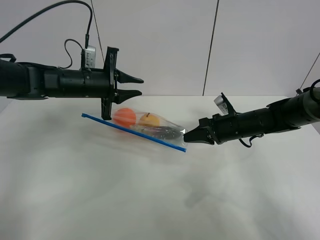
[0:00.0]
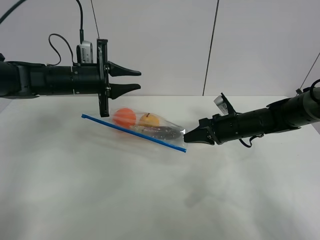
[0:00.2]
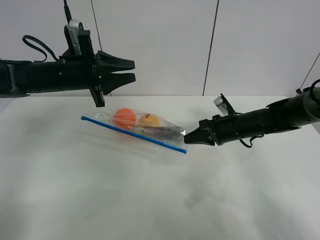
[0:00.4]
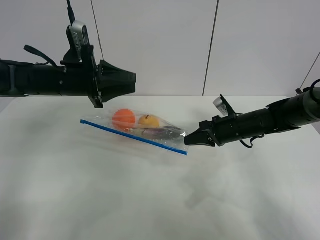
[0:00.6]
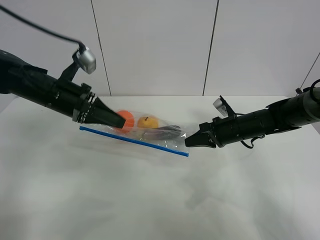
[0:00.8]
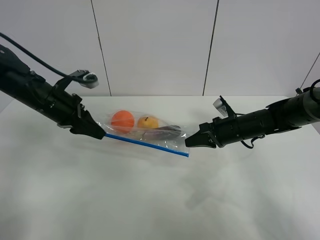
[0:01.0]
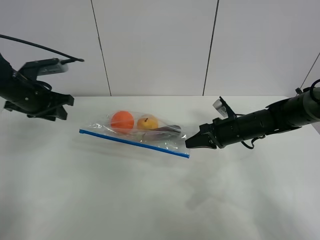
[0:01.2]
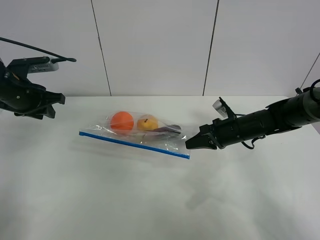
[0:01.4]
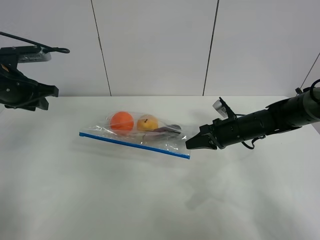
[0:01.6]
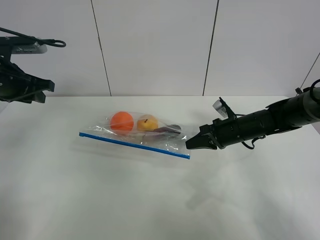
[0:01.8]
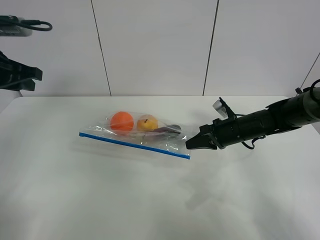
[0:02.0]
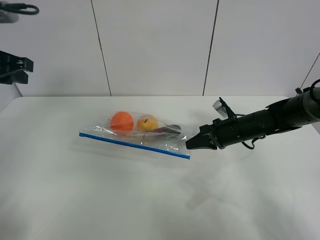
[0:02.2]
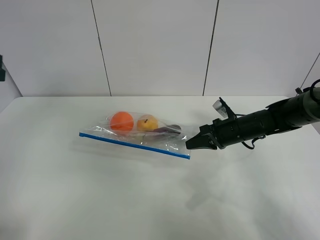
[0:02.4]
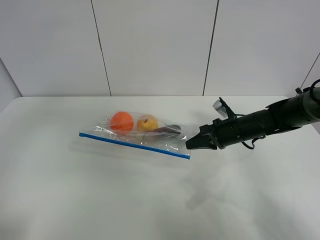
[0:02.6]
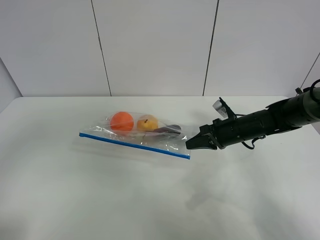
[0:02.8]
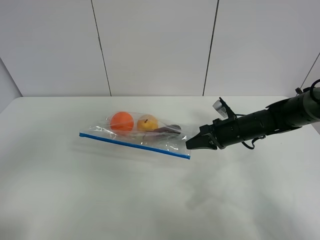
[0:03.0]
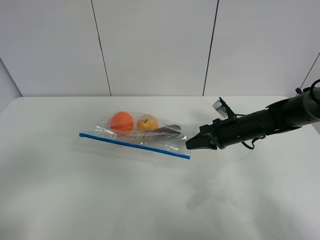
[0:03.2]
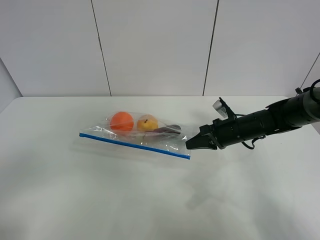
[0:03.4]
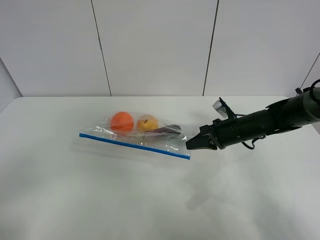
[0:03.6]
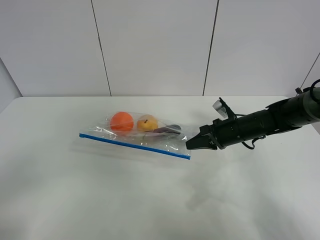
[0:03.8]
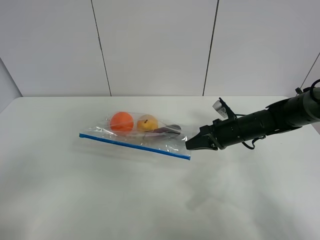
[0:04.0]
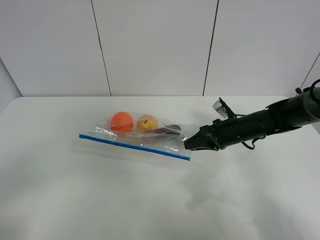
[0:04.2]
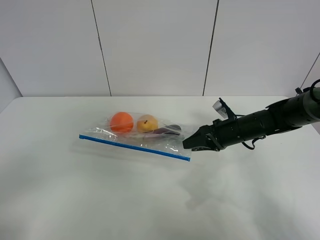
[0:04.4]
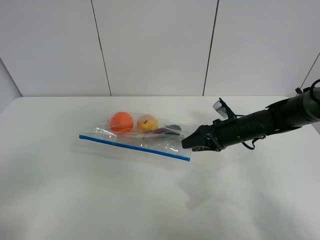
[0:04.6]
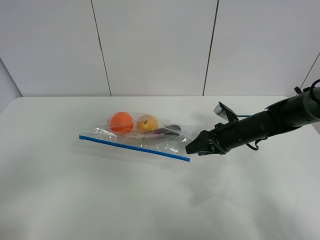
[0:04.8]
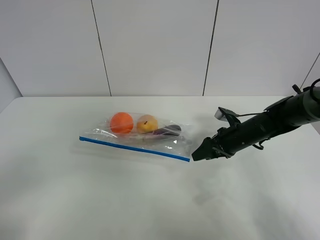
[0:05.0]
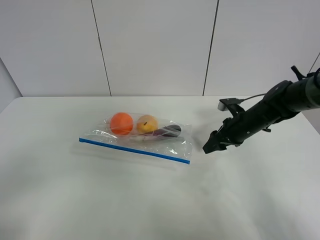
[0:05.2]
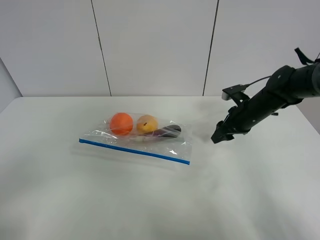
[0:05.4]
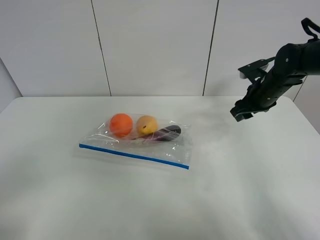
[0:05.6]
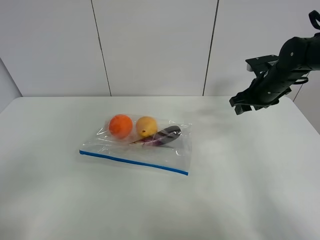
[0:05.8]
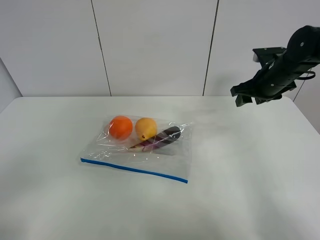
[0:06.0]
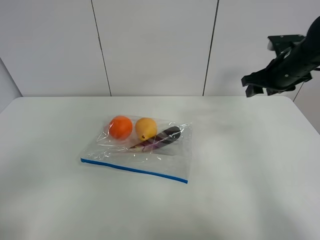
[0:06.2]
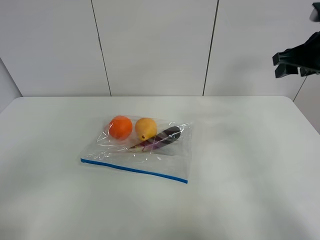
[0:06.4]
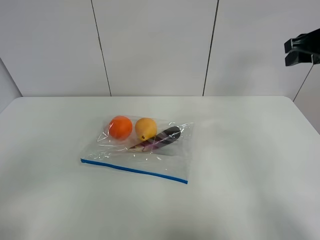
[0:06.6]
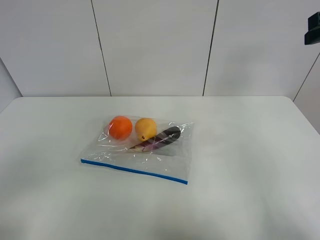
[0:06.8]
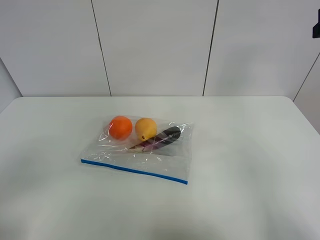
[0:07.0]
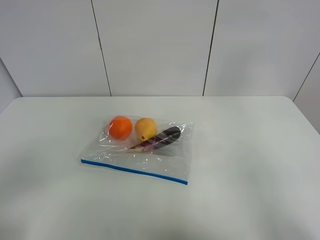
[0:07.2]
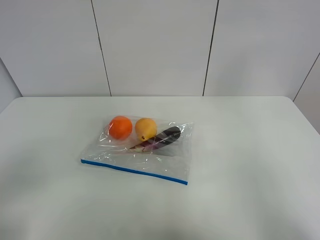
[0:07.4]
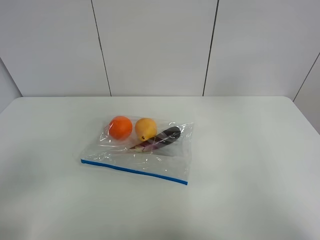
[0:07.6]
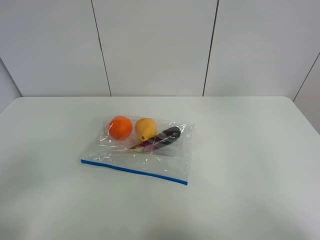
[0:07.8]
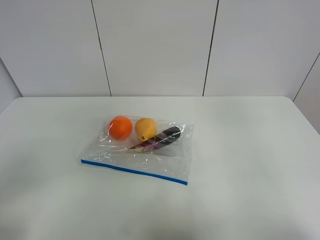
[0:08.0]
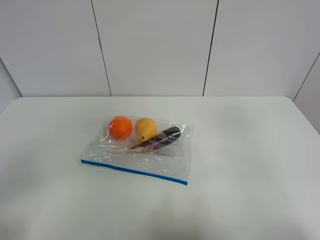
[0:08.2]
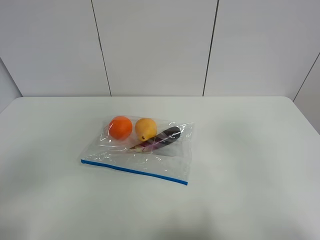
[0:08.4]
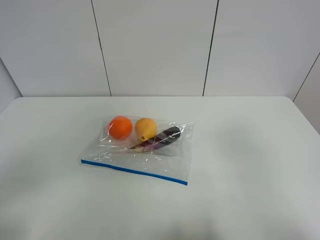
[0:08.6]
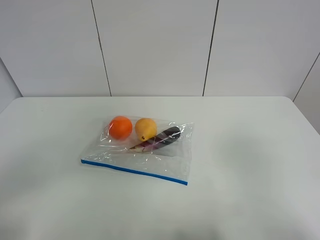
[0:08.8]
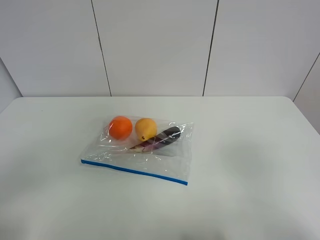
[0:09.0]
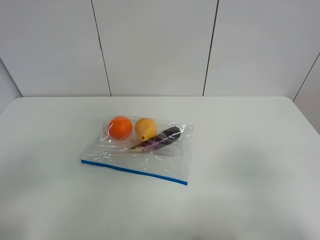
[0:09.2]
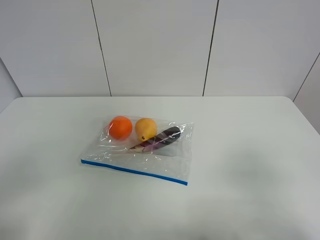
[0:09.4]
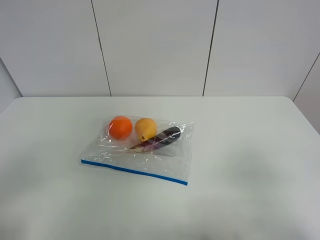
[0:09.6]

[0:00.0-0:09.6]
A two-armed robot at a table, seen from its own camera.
0:00.0 to 0:01.6: The left gripper travels to the left by some 15 cm.
0:01.6 to 0:03.2: The left gripper goes roughly 35 cm backward.
0:03.2 to 0:04.8: The right gripper opens.
0:04.8 to 0:06.4: The right gripper heads upward and to the right, covering roughly 25 cm.
0:06.4 to 0:08.0: The right gripper travels backward by about 30 cm.
0:08.0 to 0:09.6: The right gripper travels downward by about 15 cm.

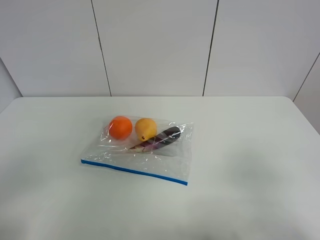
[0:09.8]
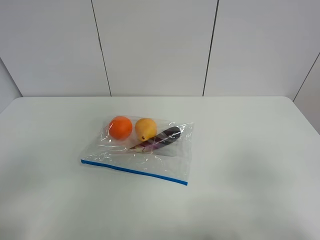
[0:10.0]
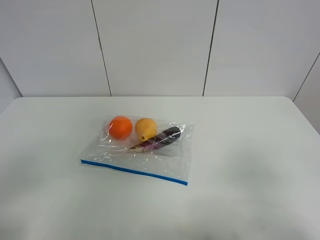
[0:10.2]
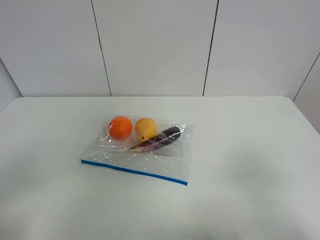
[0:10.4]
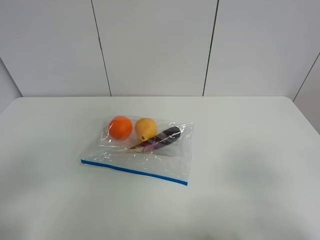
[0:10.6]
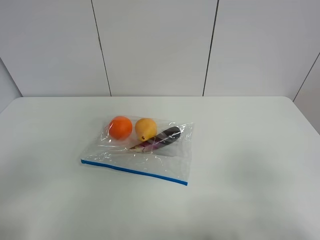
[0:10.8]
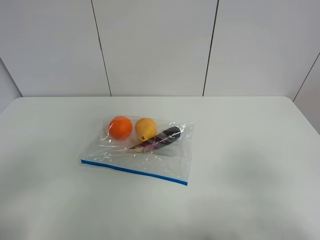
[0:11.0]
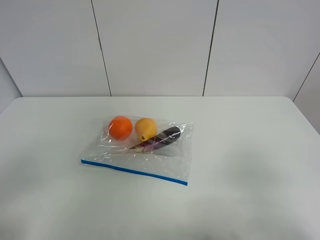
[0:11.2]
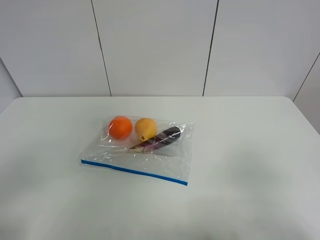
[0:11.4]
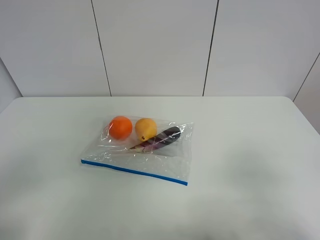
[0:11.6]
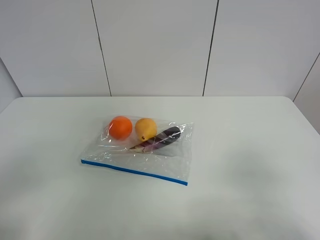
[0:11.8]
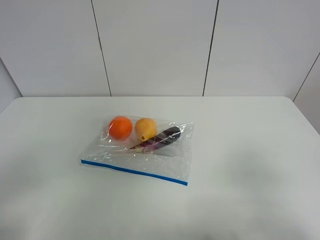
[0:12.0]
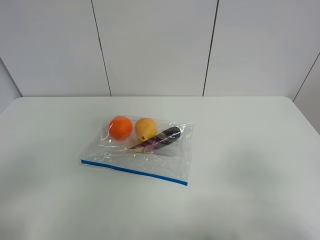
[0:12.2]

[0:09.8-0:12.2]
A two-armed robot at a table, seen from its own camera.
0:09.8 to 0:12.2: The two grippers keep their place.
